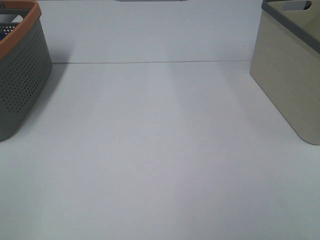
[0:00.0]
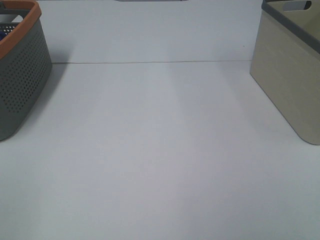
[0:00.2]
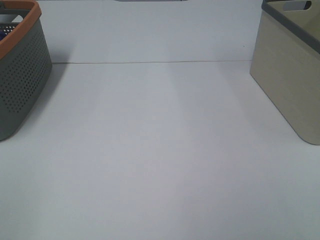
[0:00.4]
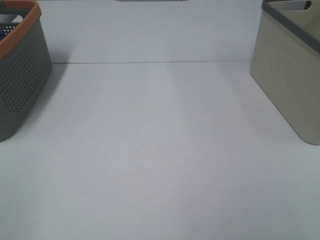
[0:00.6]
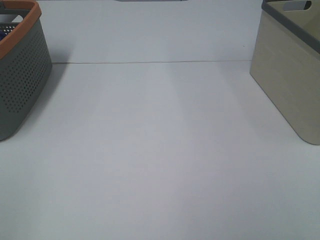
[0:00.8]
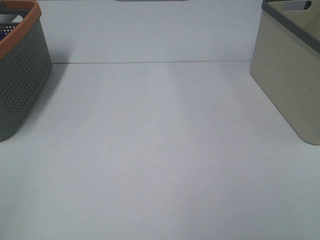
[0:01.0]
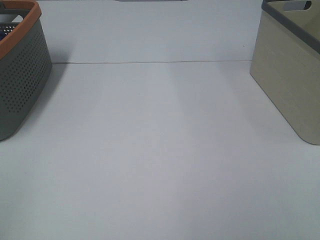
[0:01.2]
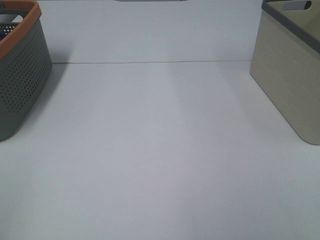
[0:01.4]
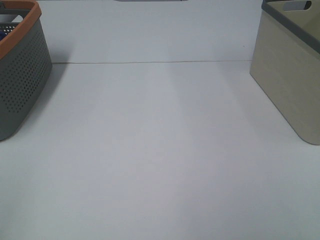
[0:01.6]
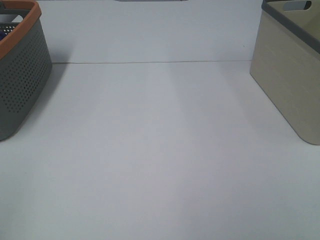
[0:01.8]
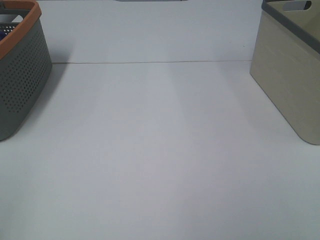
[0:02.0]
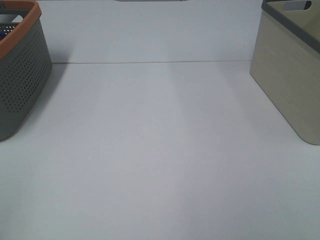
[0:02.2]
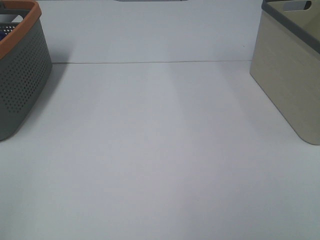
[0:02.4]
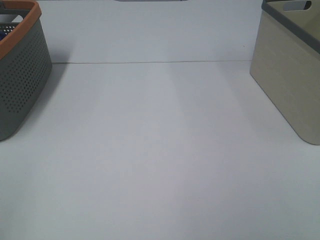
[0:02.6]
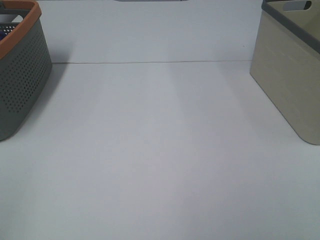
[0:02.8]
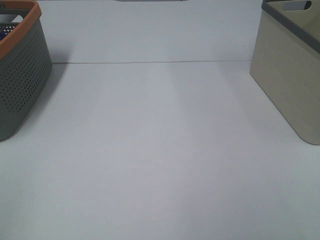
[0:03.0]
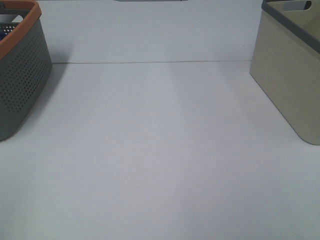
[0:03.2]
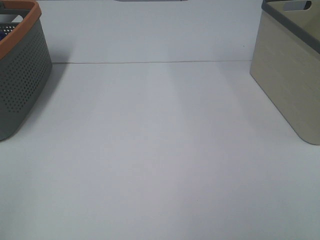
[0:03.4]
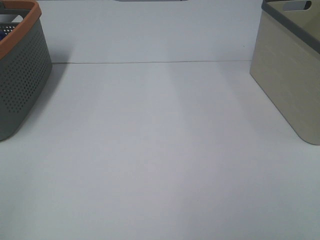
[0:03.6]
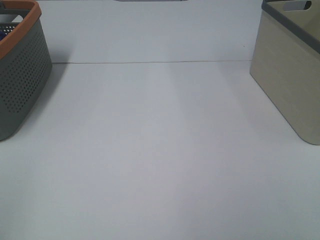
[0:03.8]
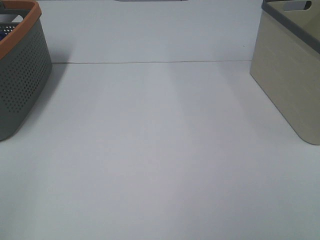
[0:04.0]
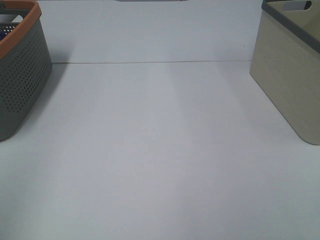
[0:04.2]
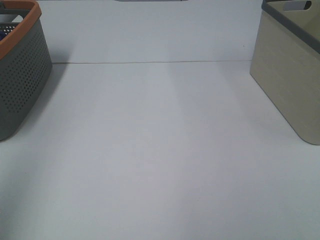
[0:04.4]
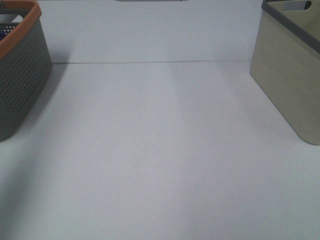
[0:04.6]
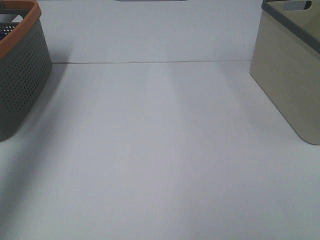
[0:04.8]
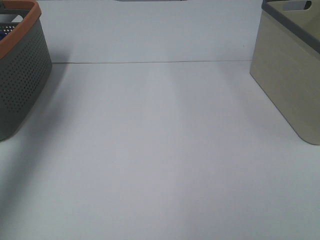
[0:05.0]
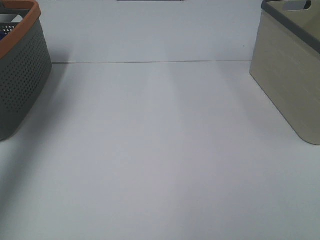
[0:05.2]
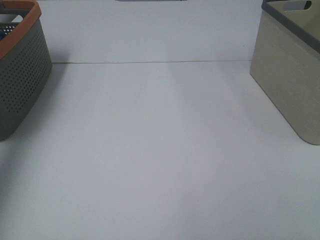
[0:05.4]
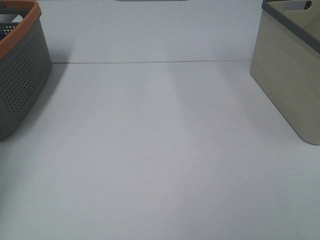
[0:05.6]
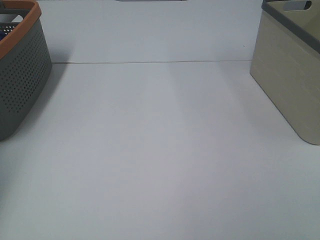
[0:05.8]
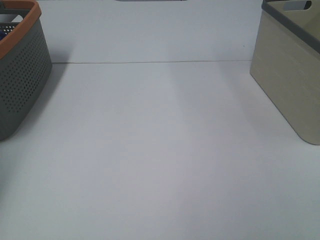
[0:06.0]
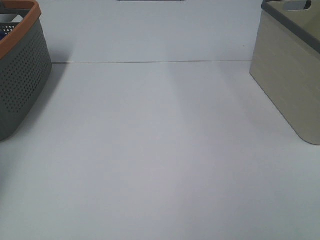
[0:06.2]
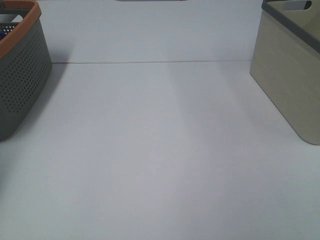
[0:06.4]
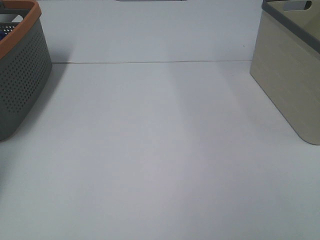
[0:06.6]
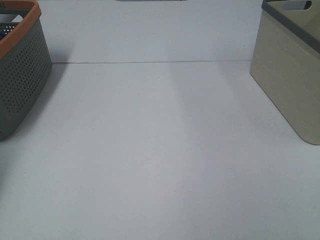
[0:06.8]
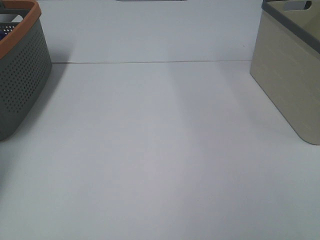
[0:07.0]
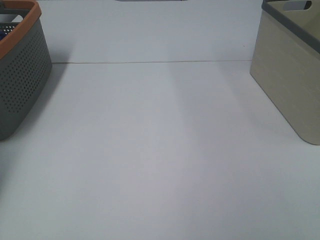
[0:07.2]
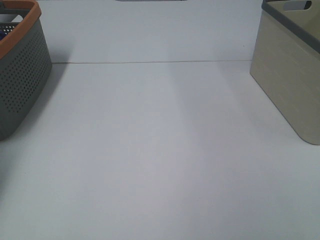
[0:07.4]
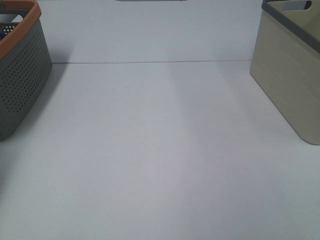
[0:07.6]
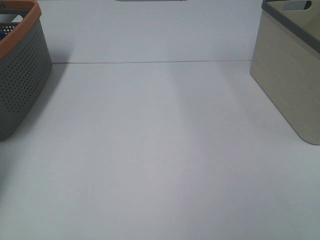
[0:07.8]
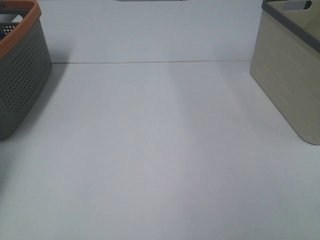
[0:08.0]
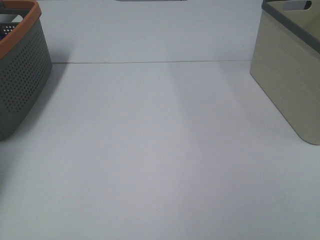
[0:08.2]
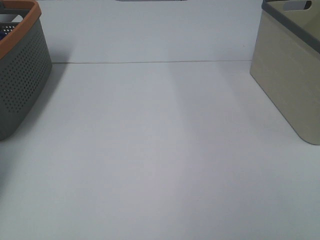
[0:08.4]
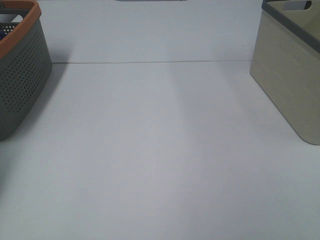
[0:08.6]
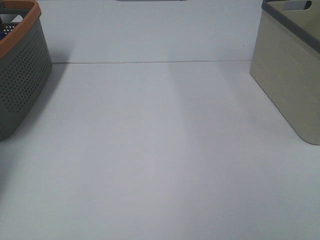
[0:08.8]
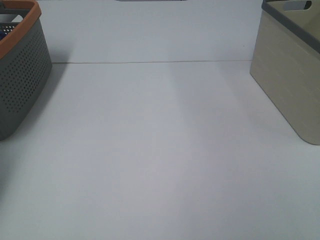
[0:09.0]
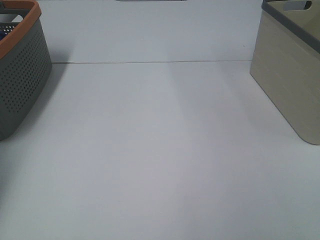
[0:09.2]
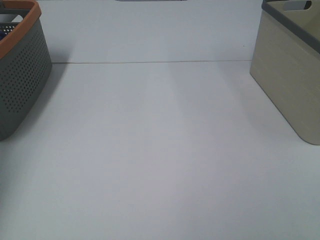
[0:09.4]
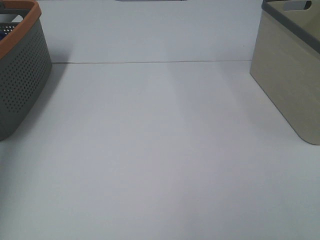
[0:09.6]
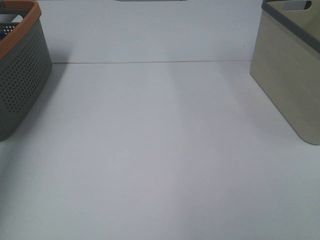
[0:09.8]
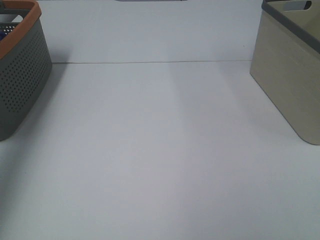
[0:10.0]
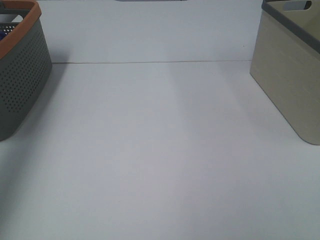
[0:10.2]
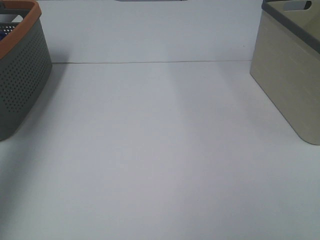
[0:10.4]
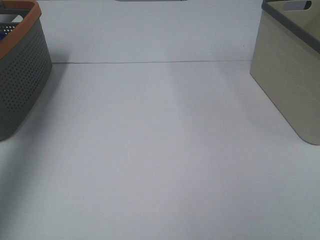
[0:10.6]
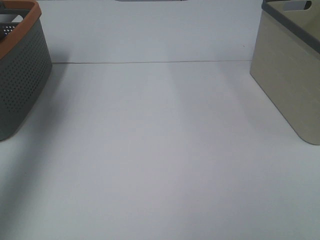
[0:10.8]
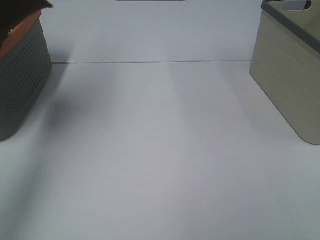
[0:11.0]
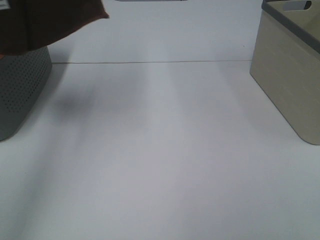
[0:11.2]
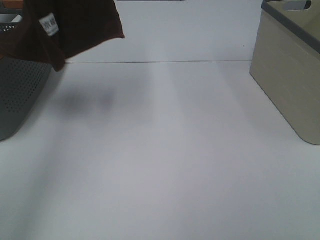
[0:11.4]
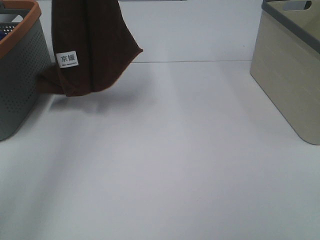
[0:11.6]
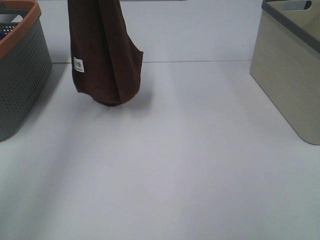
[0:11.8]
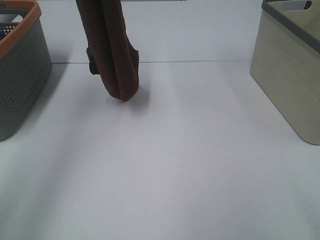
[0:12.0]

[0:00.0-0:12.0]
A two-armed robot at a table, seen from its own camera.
Task of the whole recording: Remove the towel and place it.
0:01.6 to 0:03.0: Neither gripper changes place.
0:03.0 to 0:04.4: The left gripper goes some 15 cm upward and forward.
0:04.4 to 0:06.0: The left gripper travels forward by roughly 35 cm.
0:09.0 to 0:10.4: The left gripper moves upward and backward, roughly 40 cm.
0:10.4 to 0:12.0: The right gripper is displaced forward by approximately 5 cm. Meanwhile the left gripper moves to the right, forward and downward, approximately 25 cm.

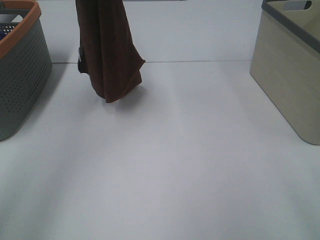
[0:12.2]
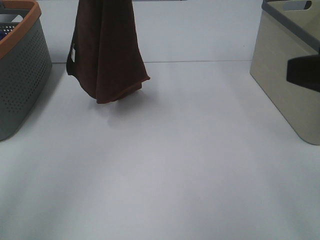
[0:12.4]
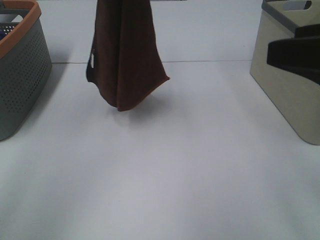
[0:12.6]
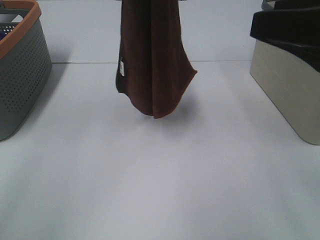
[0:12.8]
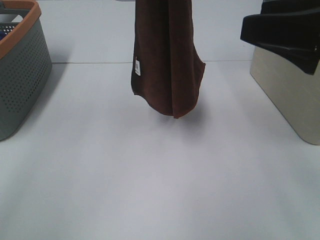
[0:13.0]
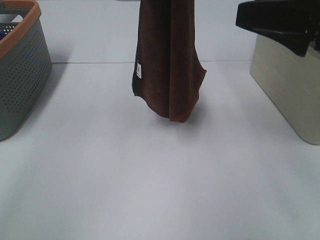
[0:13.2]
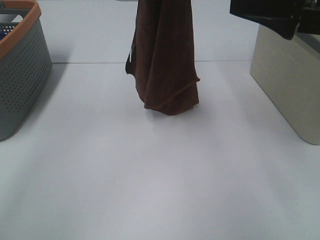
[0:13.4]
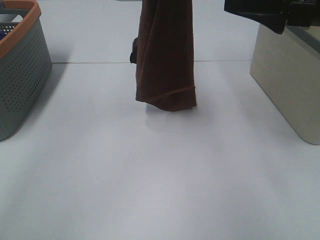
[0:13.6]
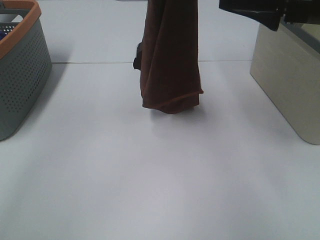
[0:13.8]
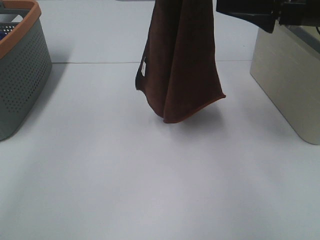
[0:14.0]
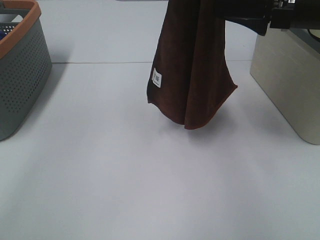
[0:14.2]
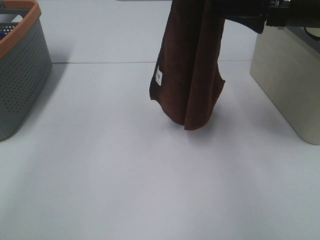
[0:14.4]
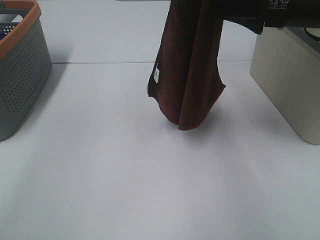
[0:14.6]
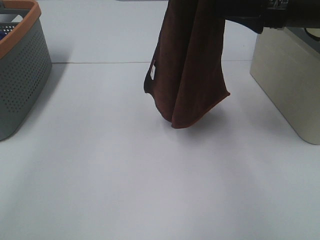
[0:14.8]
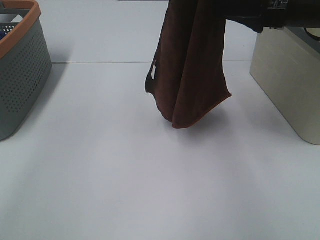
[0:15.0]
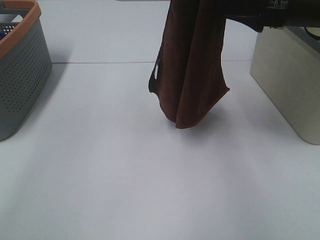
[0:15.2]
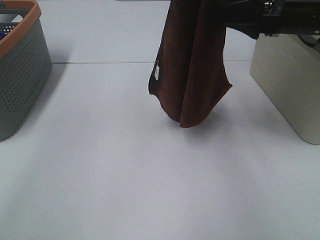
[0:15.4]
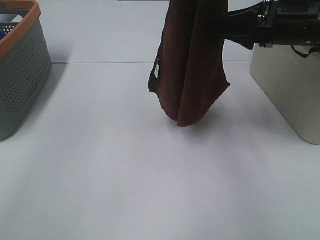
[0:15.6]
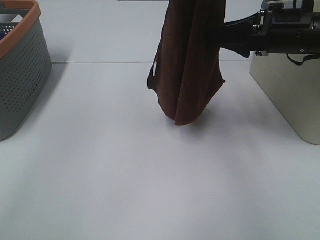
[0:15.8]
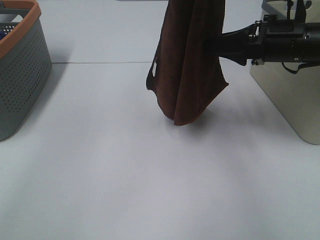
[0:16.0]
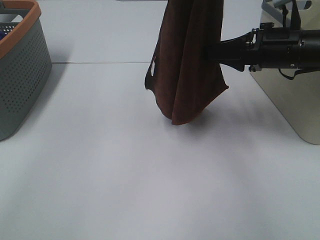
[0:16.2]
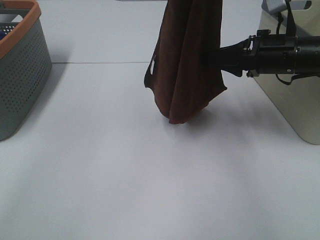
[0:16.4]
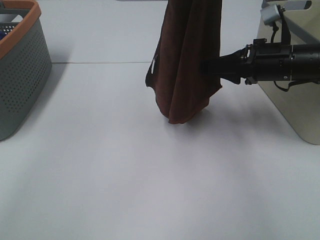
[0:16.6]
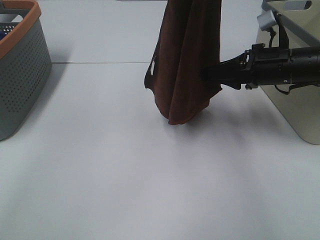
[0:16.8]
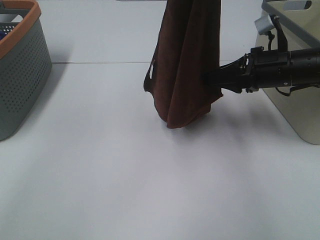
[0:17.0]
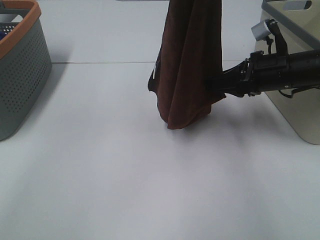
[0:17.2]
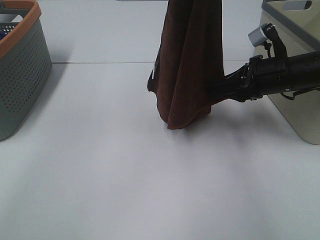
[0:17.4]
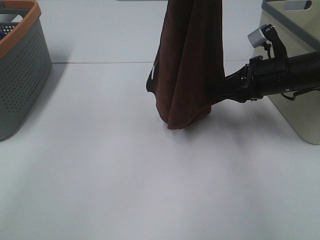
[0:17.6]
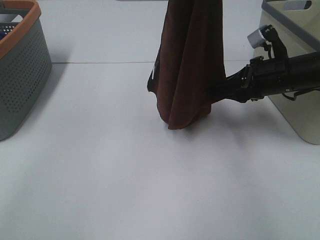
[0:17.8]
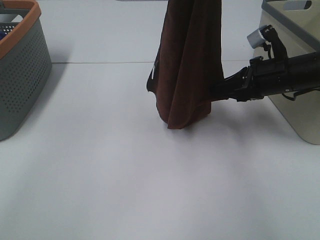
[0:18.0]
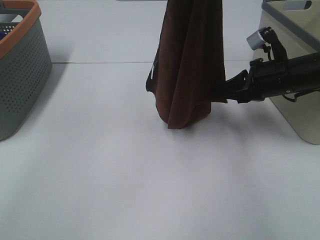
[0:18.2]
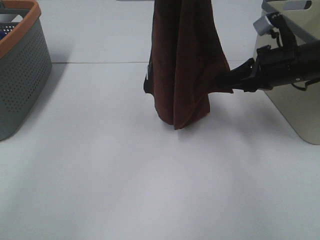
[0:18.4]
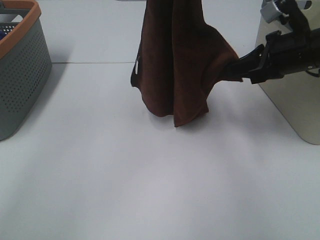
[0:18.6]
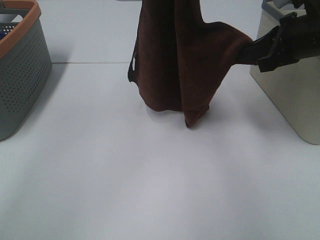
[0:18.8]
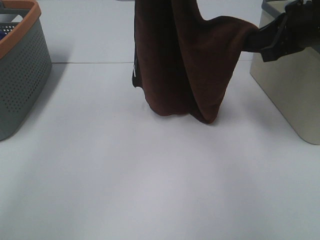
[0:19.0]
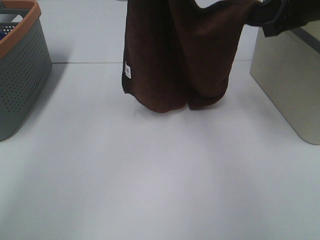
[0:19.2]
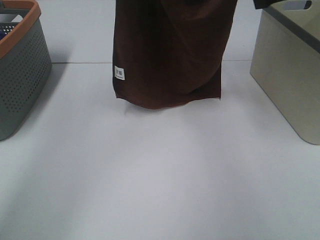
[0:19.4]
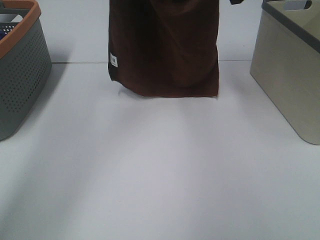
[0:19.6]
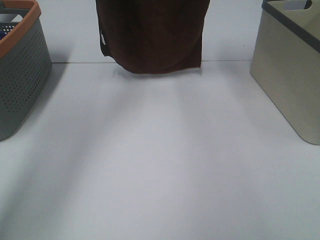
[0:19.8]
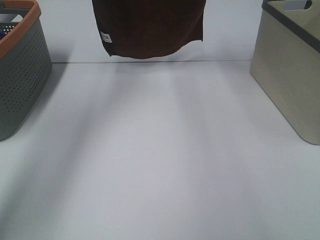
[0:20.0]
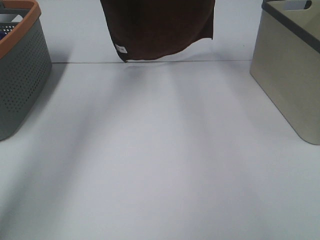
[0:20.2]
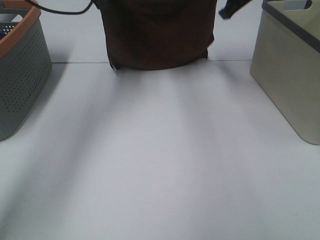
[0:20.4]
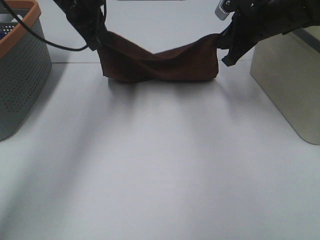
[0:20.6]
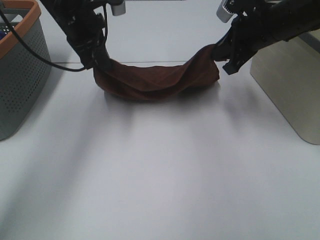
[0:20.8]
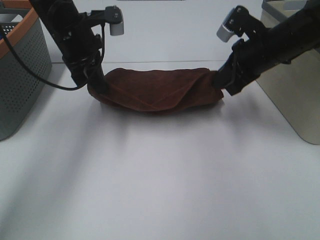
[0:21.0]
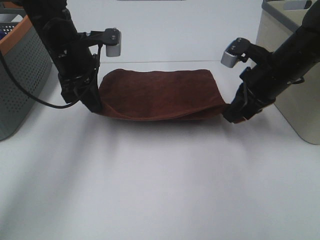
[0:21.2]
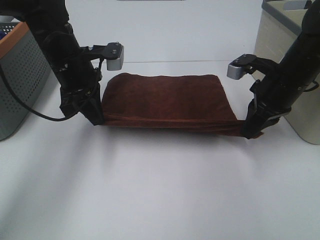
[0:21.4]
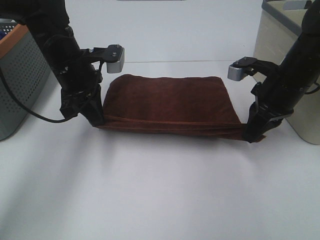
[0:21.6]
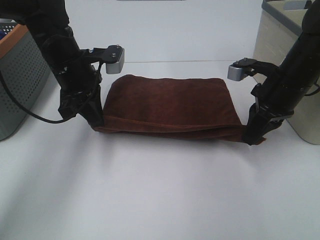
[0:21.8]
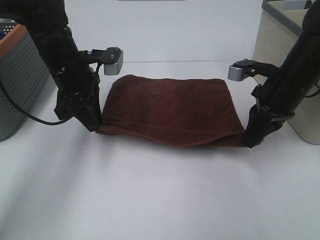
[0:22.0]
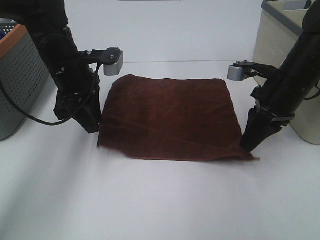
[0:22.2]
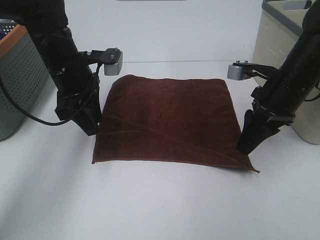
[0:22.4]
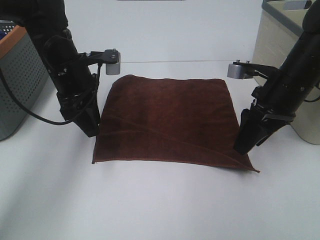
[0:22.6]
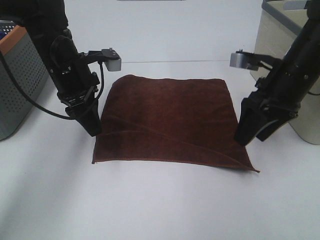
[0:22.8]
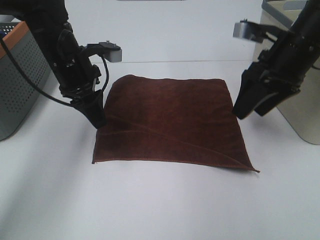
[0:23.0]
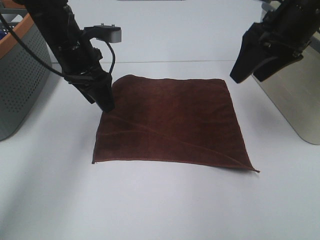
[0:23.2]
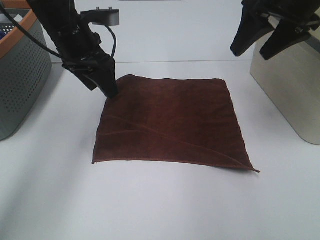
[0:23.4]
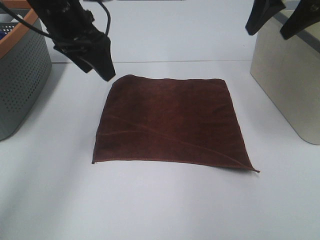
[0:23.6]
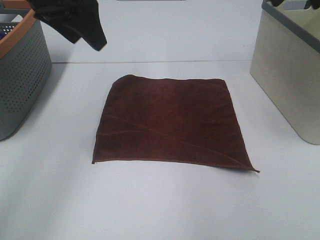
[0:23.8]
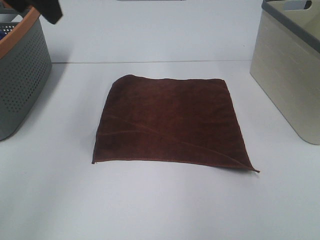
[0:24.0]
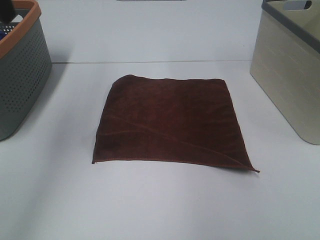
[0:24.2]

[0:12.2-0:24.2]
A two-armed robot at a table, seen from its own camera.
Task of the whole recording: Remove the towel and place it.
Step, 0:12.2 to 0:15.8: Right hand: grab a corner of the brown towel and straighten it.
Step, 0:16.0 to 0:17.6: Left hand: spread the brown towel flat on the table.
Step, 0:16.0 to 0:17.6: Right hand: spread the brown towel flat on the table.
0:12.2 to 0:13.8: The left gripper goes roughly 10 cm to the right; the right gripper is displaced forward by roughly 20 cm.
0:13.8 to 0:15.2: The grippers move only a little.
0:15.2 to 0:16.6: The right gripper shifts some 10 cm downward.
0:16.6 to 0:18.2: The right gripper closes up.
0:18.2 to 0:19.8: The left gripper moves forward and to the left, some 20 cm; the right gripper goes about 25 cm upward and forward.
0:19.8 to 0:21.2: Both grippers move downward and backward, about 20 cm.
0:21.2 to 0:22.6: The right gripper opens up; the left gripper opens.
0:22.6 to 0:24.2: The left gripper heads upward and to the left, covering approximately 25 cm. The right gripper moves upward, some 25 cm.
